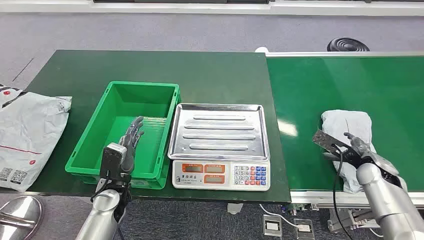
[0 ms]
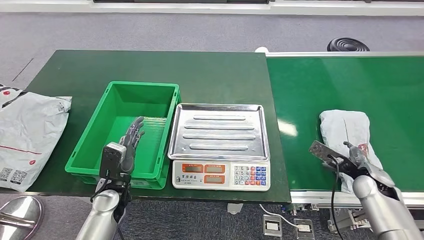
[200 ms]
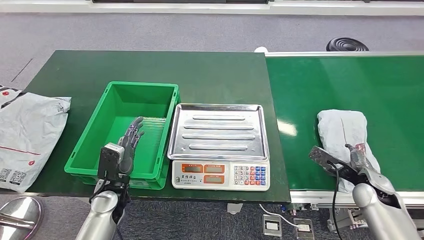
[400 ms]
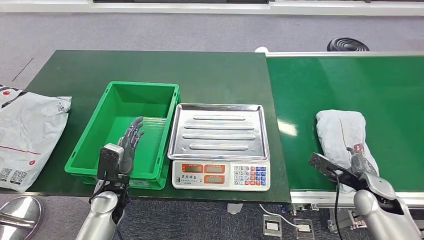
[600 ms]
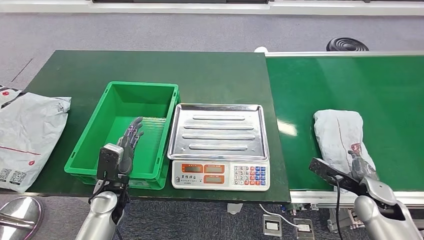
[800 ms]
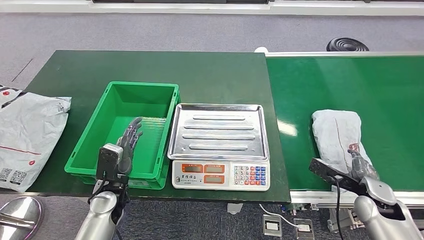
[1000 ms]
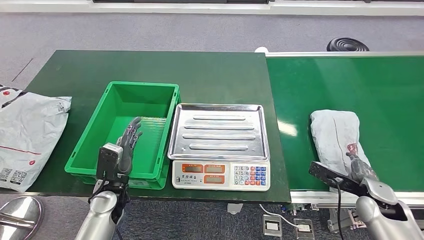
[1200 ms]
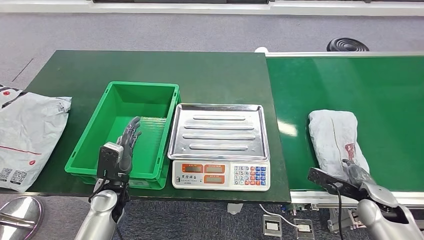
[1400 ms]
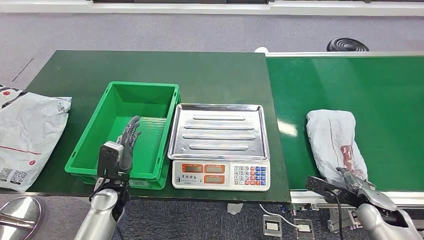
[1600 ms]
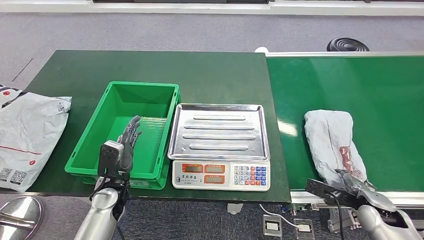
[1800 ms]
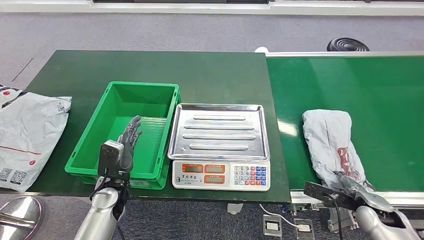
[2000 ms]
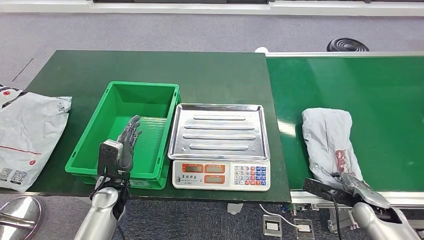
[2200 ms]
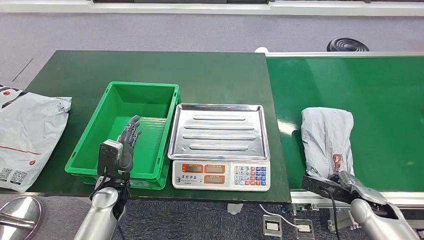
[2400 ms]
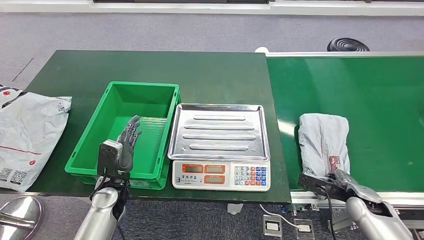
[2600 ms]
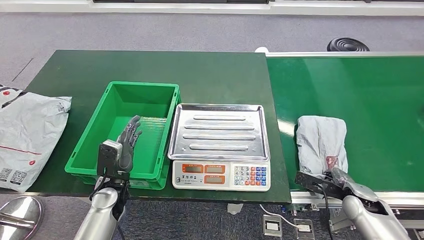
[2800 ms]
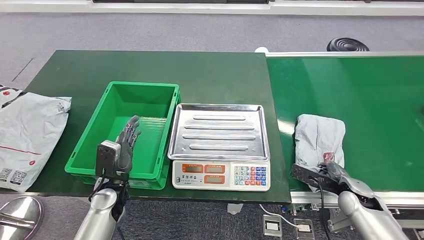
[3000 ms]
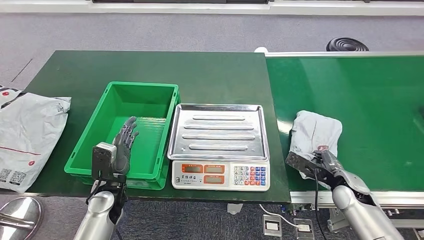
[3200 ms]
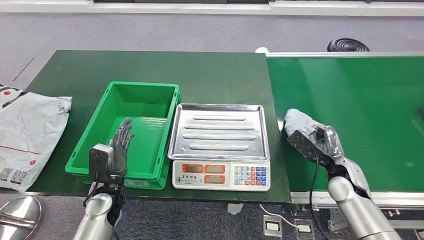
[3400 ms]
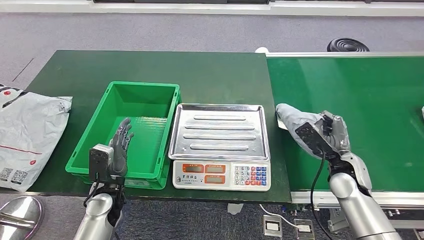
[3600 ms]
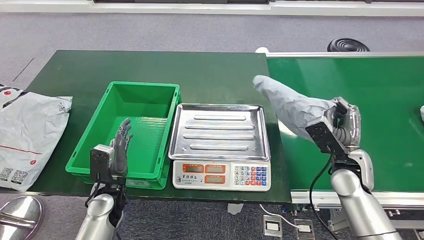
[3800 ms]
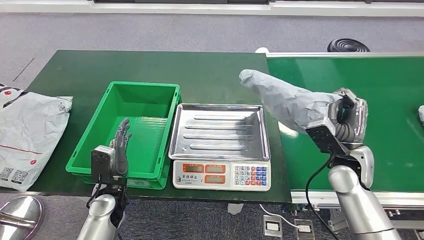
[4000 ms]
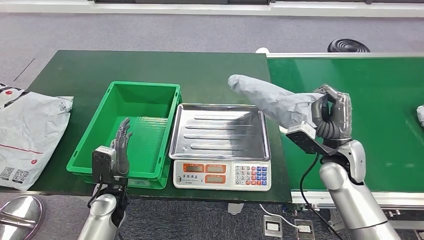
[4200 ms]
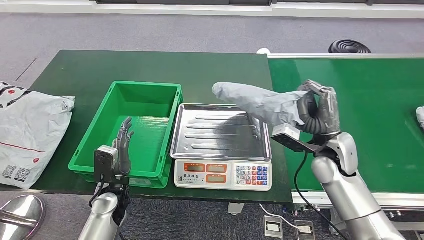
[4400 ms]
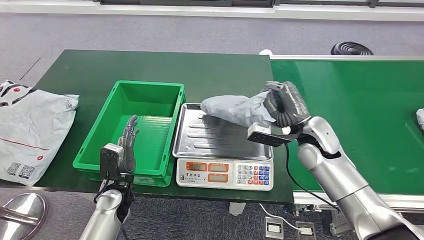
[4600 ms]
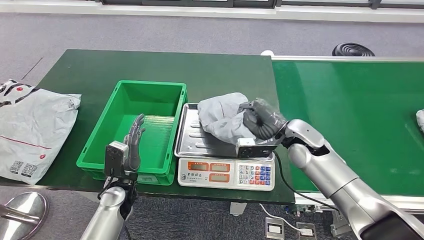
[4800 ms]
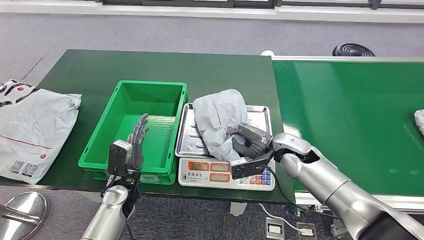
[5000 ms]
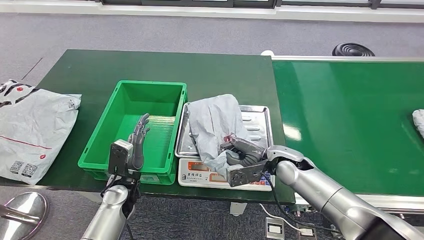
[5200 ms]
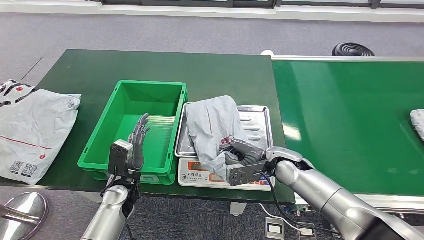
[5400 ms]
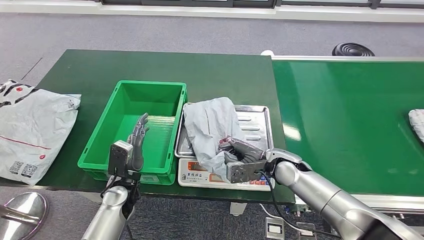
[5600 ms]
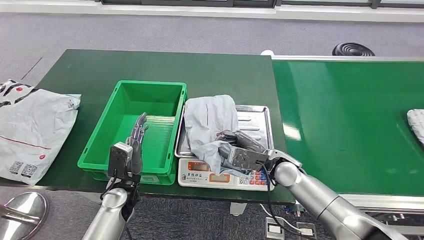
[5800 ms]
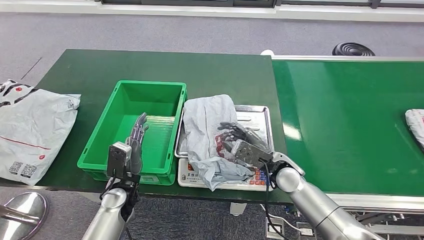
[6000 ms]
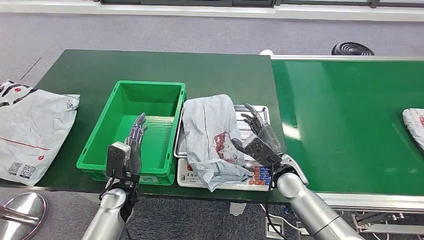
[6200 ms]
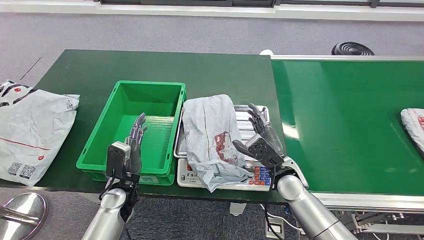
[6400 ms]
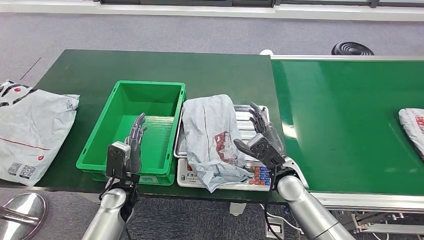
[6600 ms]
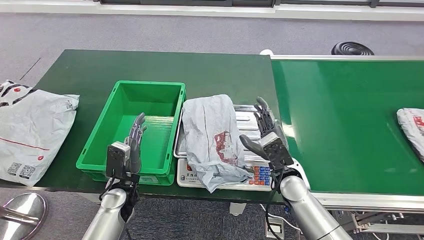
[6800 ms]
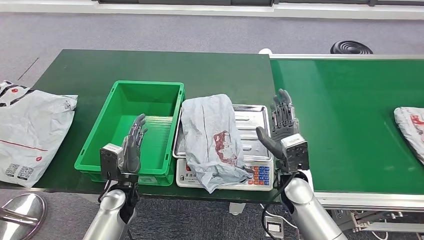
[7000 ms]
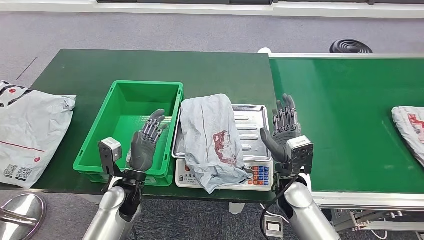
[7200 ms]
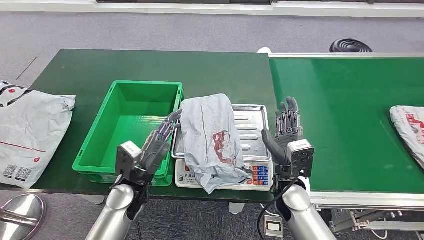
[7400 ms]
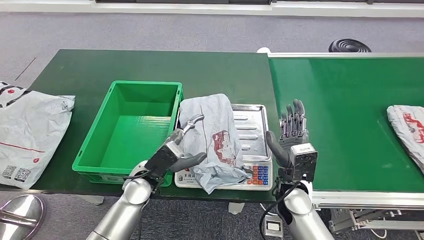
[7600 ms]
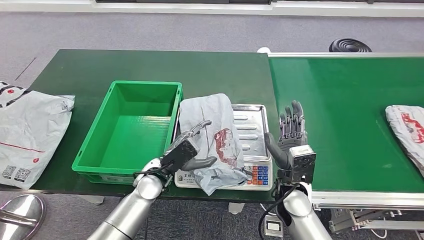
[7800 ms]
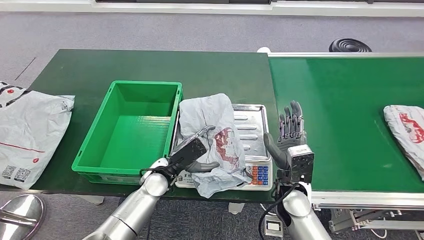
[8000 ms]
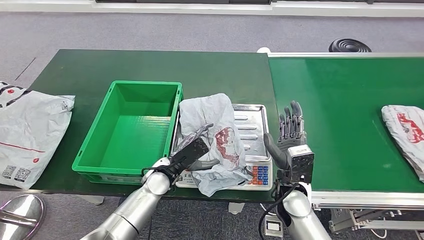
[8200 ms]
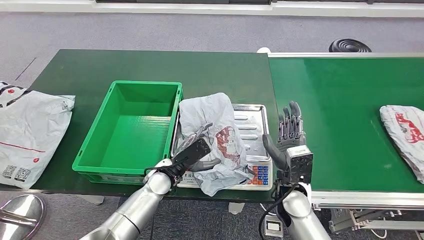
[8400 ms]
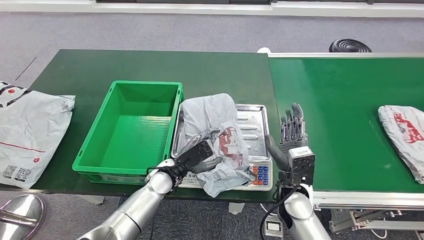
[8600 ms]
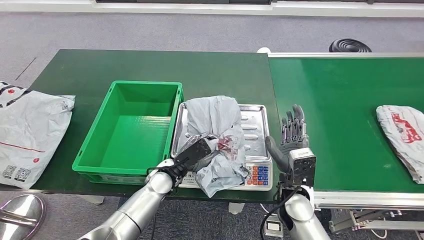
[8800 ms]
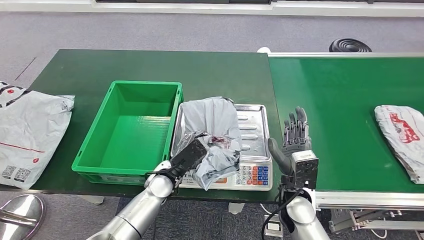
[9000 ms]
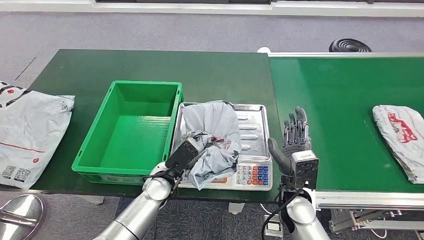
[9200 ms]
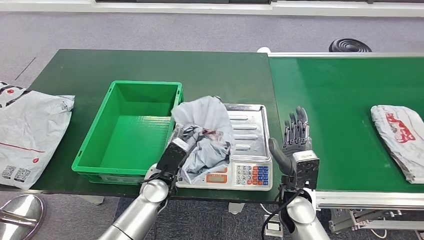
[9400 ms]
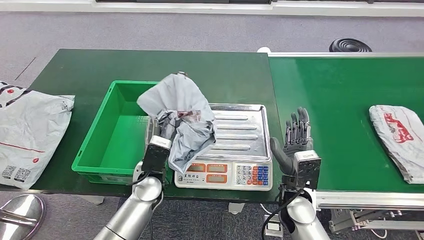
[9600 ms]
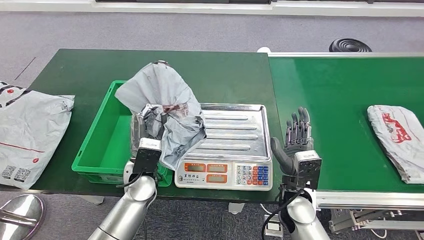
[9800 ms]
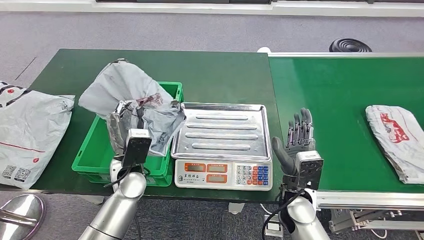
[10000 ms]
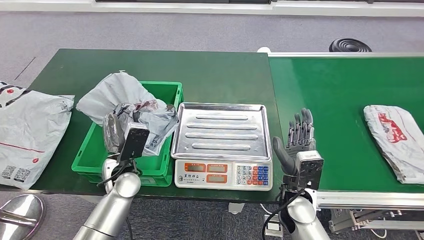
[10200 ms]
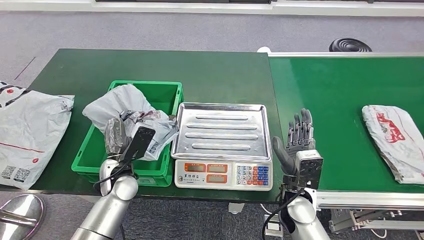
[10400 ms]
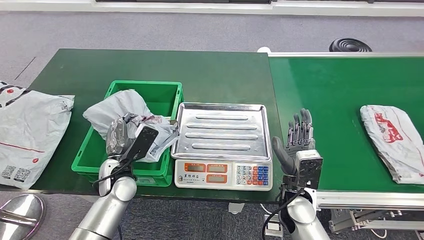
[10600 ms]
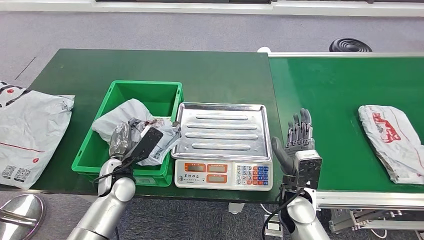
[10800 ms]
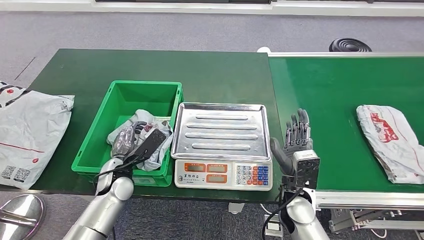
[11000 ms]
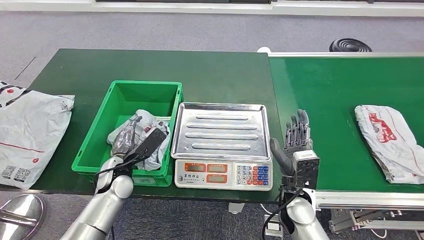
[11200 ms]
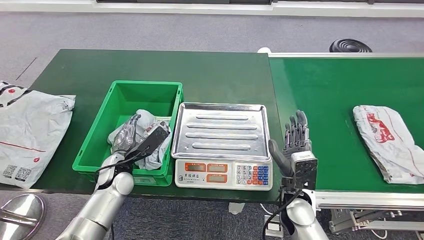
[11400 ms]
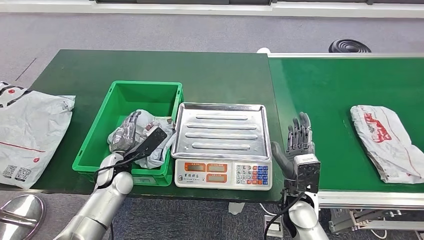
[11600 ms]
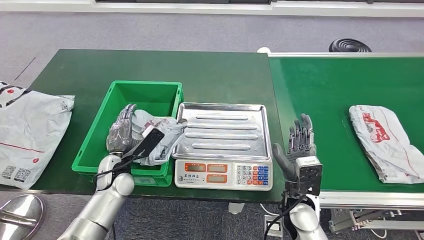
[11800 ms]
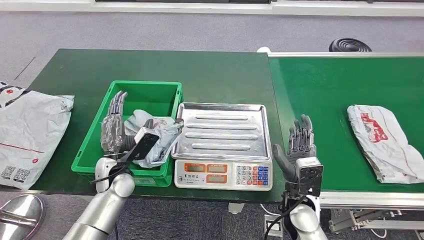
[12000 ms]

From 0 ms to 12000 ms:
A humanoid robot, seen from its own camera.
Step, from 0 ms to 3800 ms: Take the parcel off the conveyor belt.
Step, from 4200 ms to 6800 ms: Place the parcel onto the inbound machine.
Step, from 7000 ms to 9800 ms: Pick up the parcel from the inbound machine.
Step, from 10200 ms to 12000 ms: Put the parcel inside the courier box.
From 1600 ms to 3000 ms: The right hand changes place by roughly 5 cm.
From 7600 ms to 9000 ms: The left hand moves some 5 cm.
From 9000 ms to 10400 ms: The left hand is displaced to the left by approximately 10 cm.
